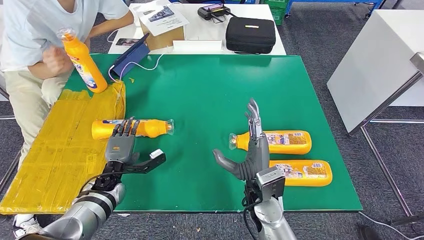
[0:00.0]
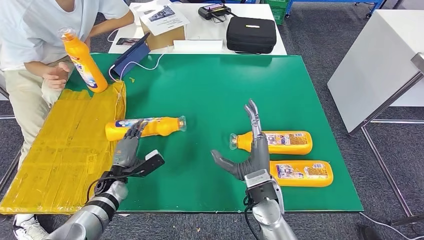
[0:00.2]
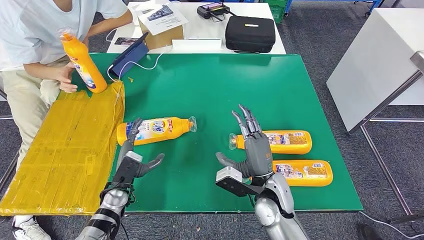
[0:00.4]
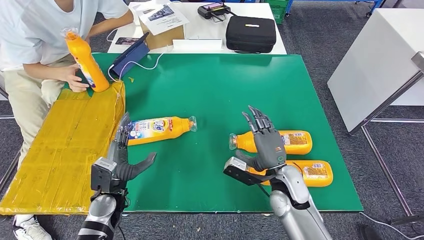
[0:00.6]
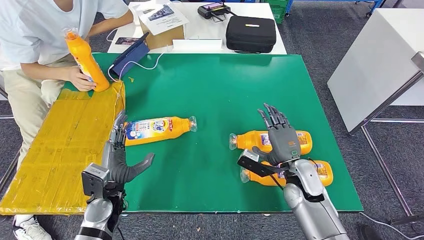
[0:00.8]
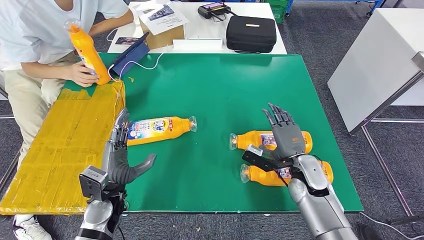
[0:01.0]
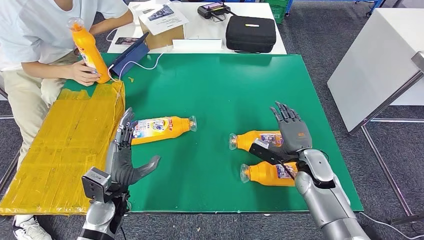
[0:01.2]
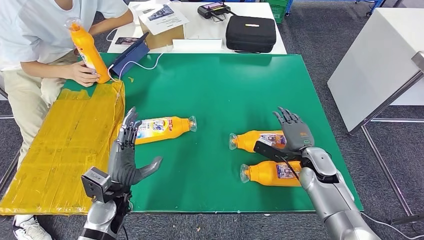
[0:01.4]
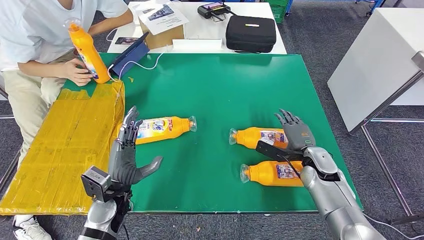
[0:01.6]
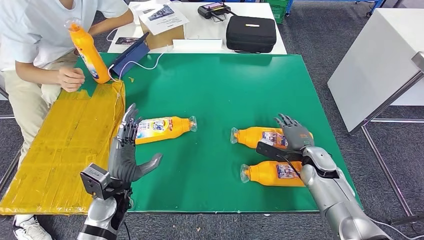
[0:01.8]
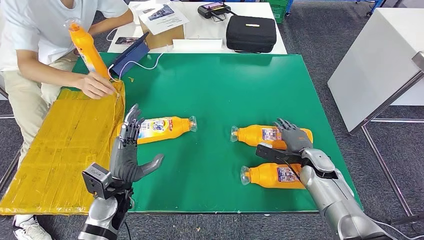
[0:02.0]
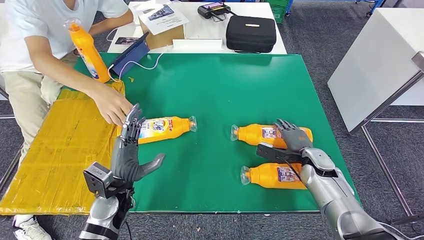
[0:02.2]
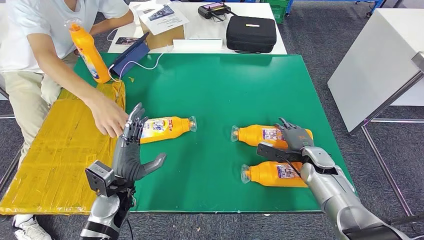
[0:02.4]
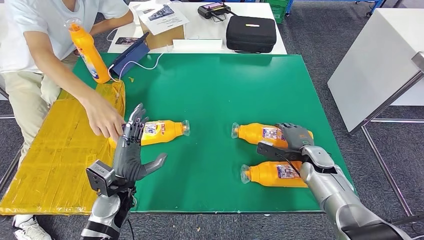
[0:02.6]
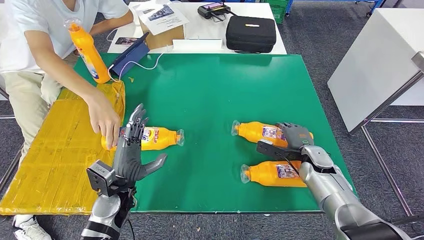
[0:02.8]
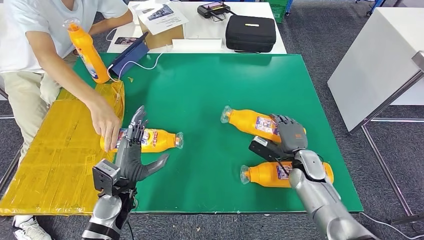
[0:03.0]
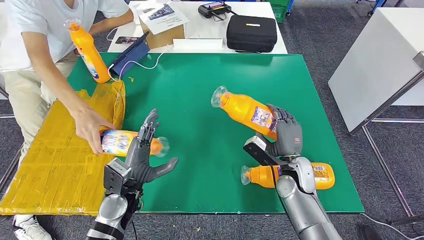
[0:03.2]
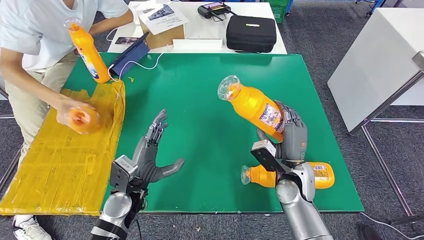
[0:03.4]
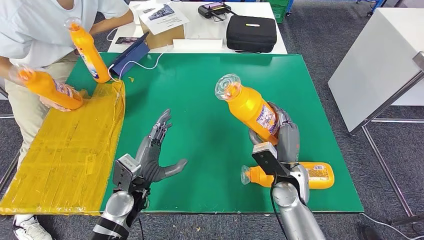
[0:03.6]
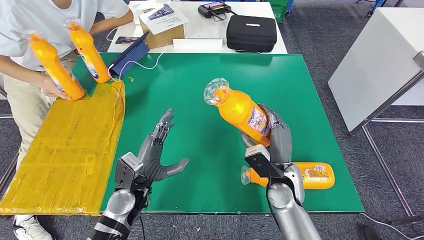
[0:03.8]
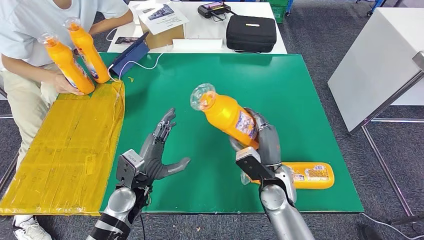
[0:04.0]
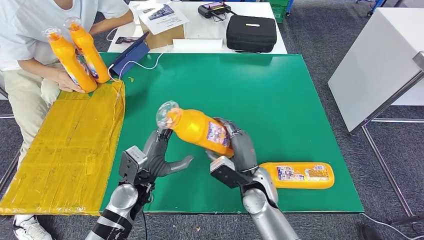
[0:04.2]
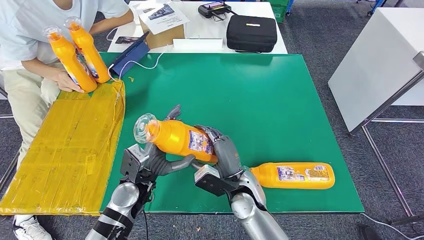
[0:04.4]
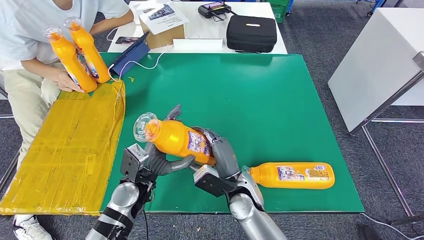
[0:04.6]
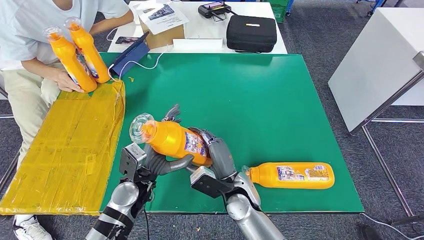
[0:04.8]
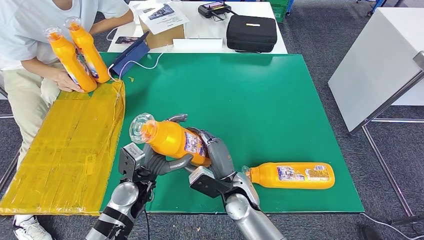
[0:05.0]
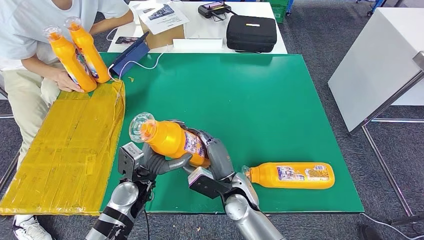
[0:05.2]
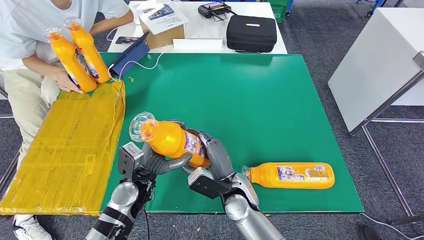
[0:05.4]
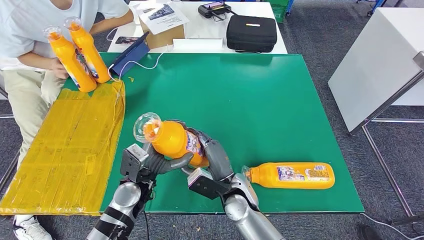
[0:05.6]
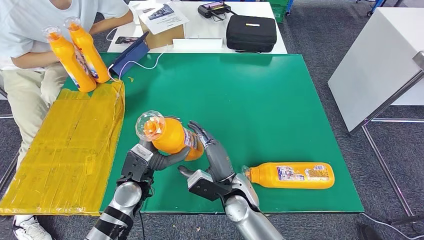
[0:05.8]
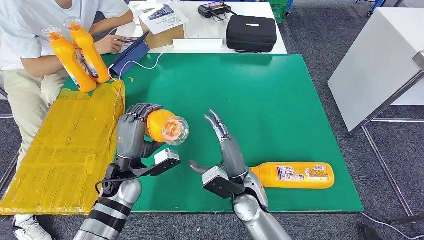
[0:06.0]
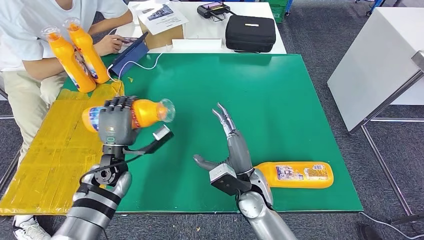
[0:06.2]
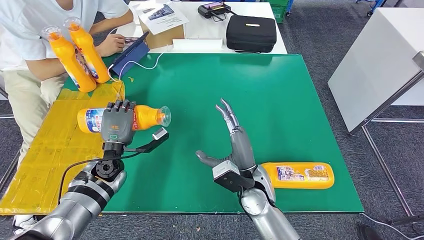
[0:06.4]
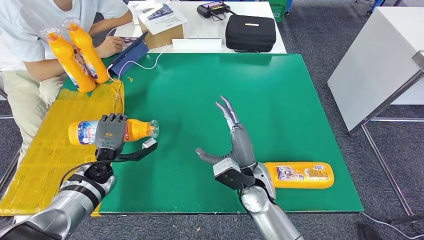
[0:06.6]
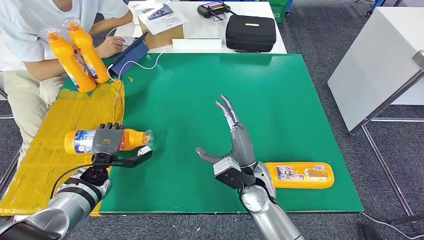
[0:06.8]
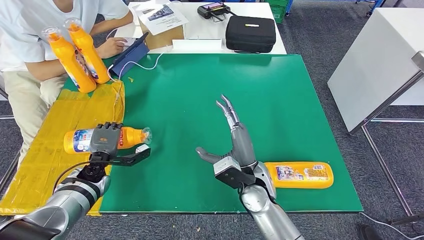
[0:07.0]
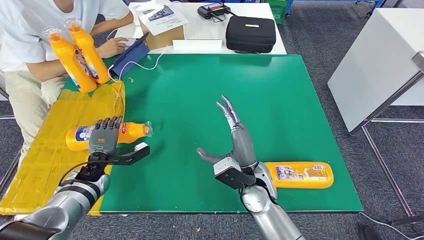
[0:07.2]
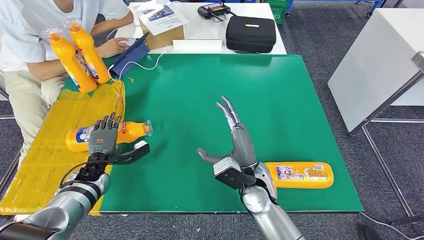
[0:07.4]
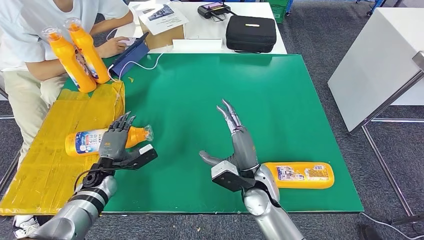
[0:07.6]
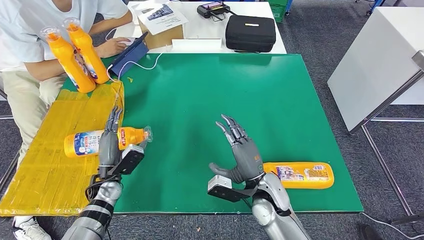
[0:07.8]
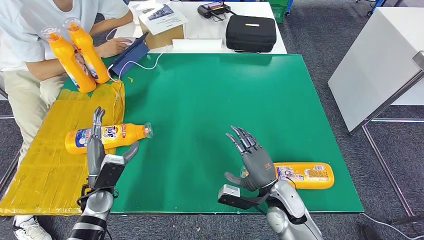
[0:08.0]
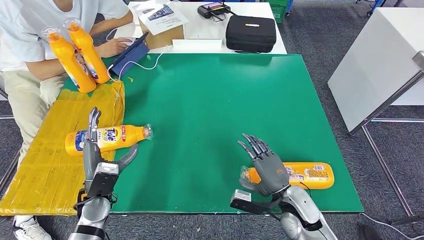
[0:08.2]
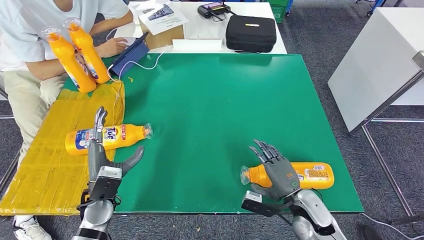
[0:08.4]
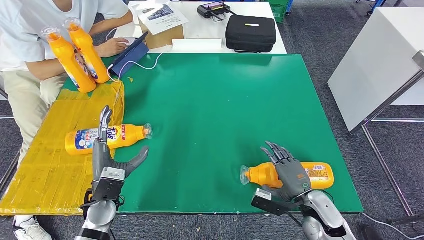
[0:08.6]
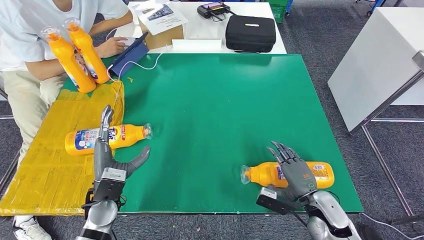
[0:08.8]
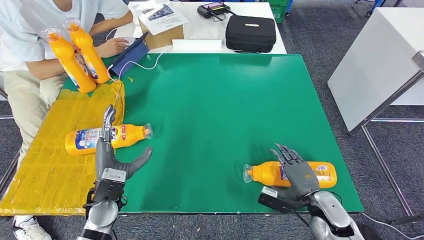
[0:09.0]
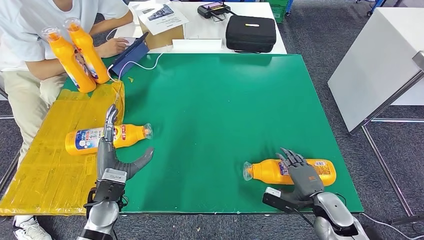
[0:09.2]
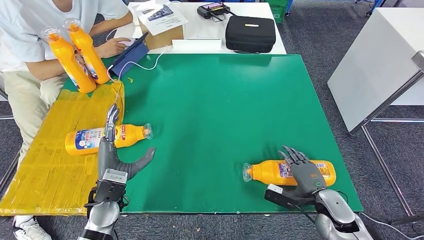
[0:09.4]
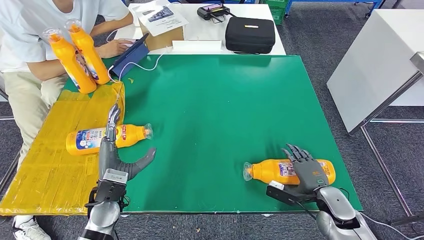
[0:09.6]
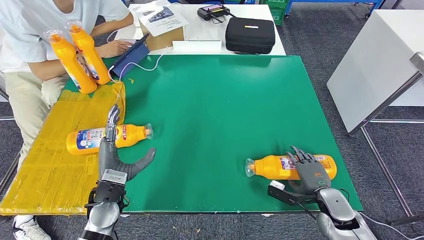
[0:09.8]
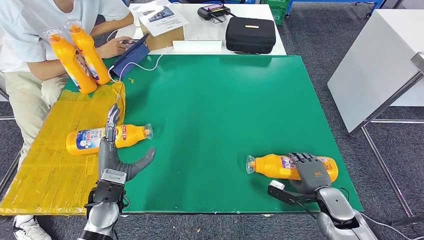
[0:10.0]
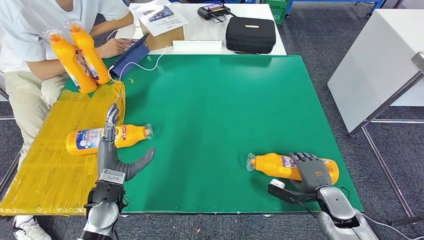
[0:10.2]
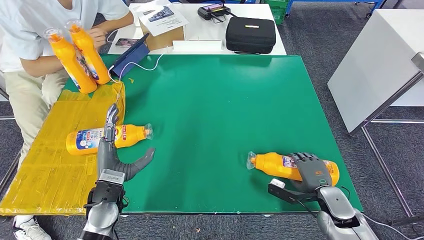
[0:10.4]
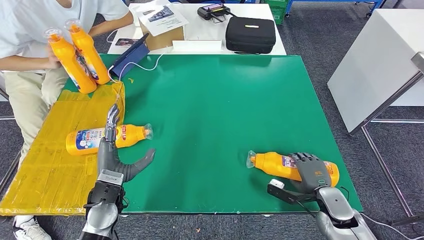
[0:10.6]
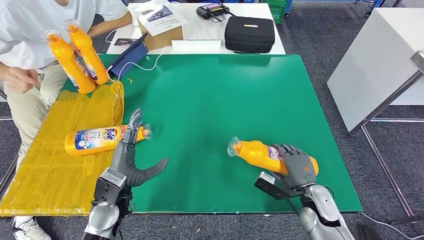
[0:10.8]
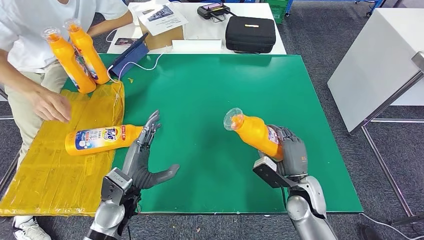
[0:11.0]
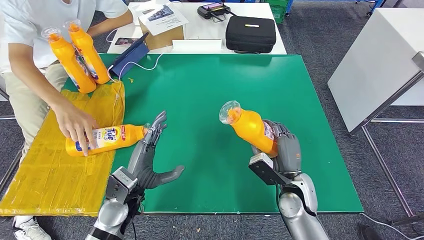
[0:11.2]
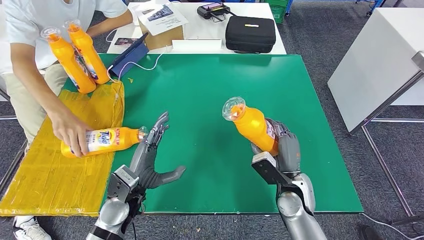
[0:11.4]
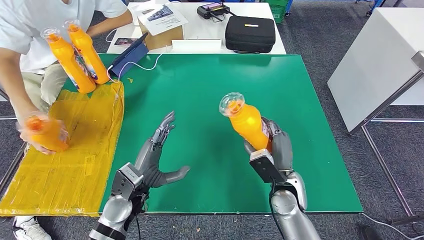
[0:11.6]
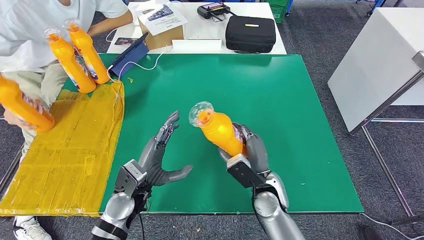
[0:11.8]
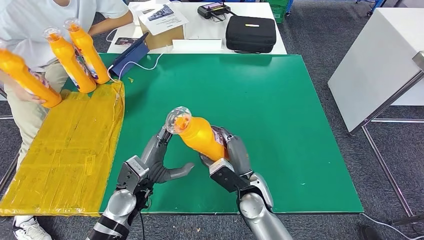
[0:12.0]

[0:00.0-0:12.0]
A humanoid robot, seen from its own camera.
Step, 0:00.6 to 0:03.6: Pick up the bottle from the table.
Step, 0:03.8 to 0:09.6: Flip the bottle to face forward.
0:01.6 to 0:03.0: The hands move only a little.
0:06.0 to 0:07.6: The left hand moves to the left and downward, roughly 15 cm.
0:07.6 to 0:09.0: The right hand is displaced to the right by about 20 cm; the left hand travels backward, to the right and upward by some 15 cm.

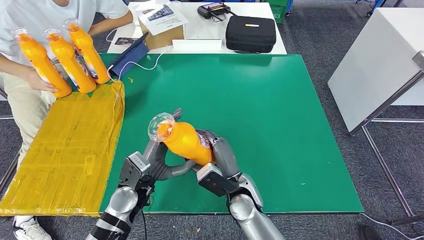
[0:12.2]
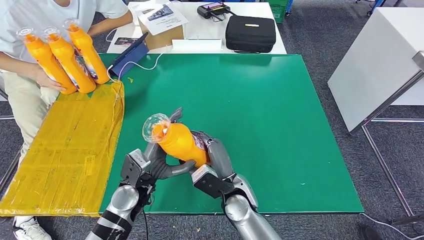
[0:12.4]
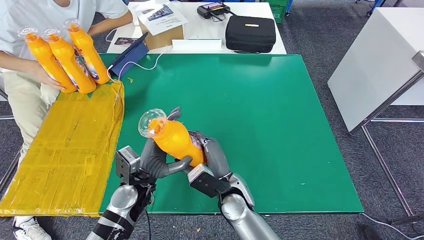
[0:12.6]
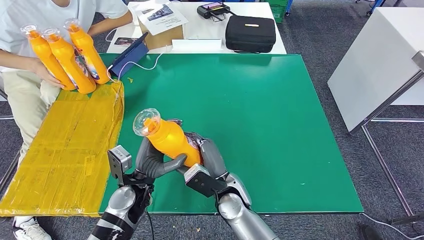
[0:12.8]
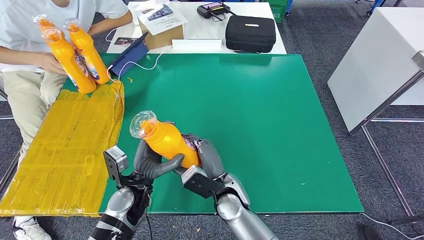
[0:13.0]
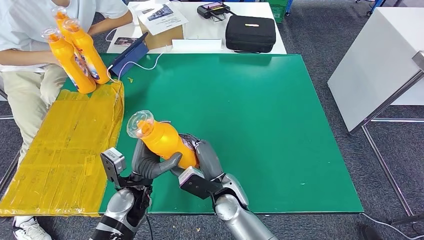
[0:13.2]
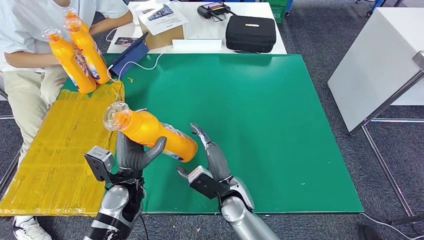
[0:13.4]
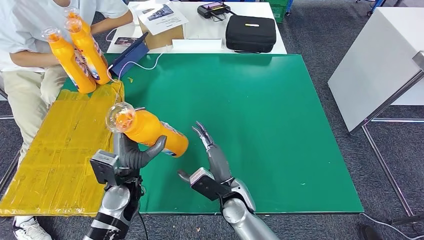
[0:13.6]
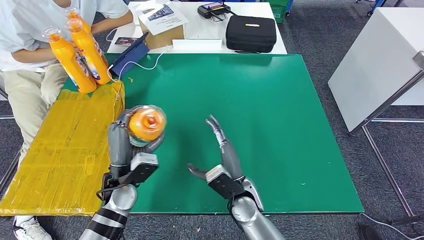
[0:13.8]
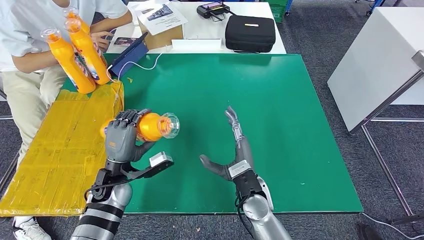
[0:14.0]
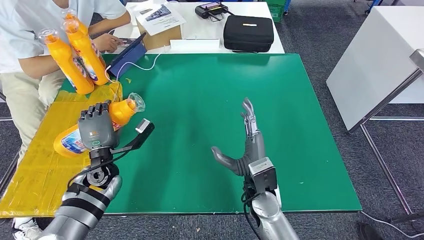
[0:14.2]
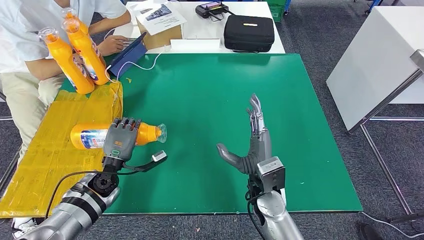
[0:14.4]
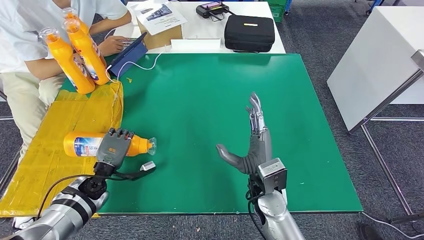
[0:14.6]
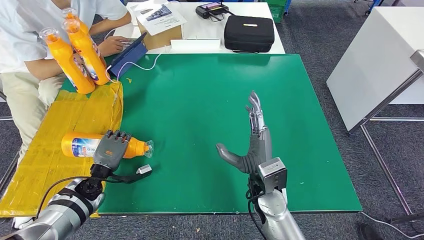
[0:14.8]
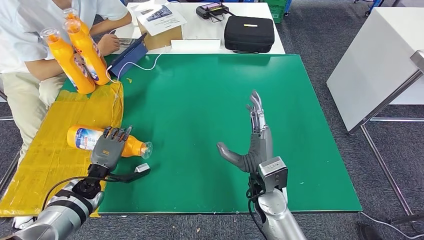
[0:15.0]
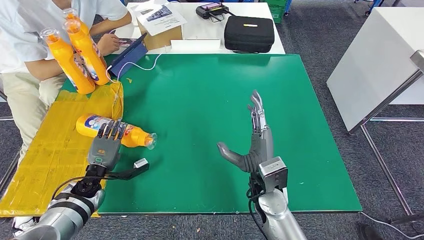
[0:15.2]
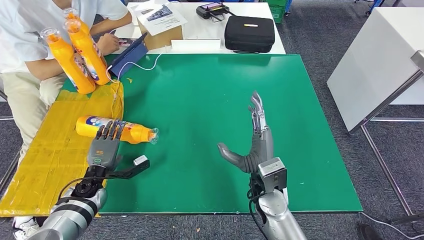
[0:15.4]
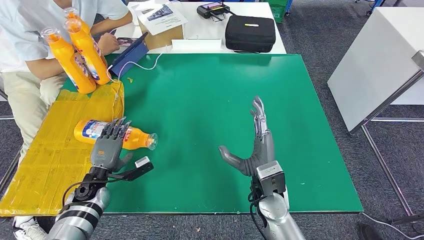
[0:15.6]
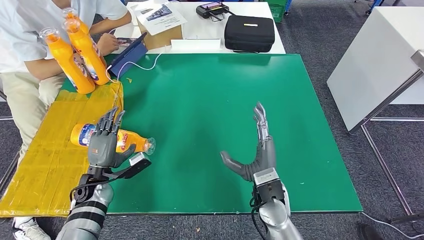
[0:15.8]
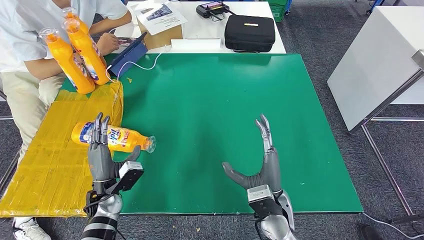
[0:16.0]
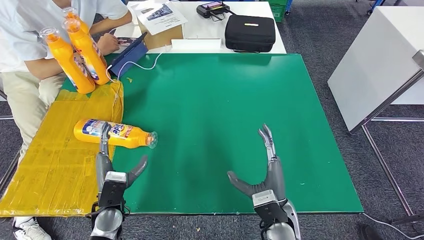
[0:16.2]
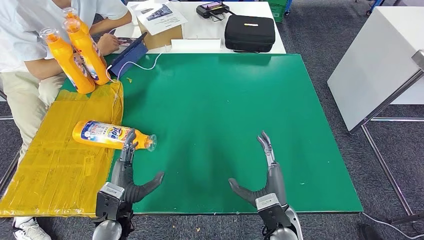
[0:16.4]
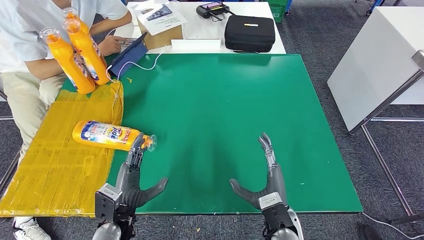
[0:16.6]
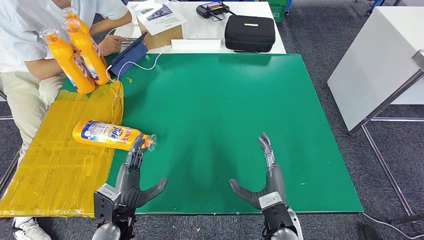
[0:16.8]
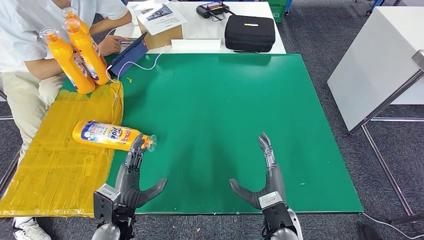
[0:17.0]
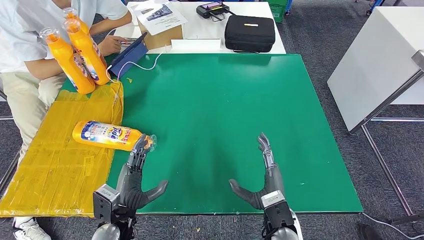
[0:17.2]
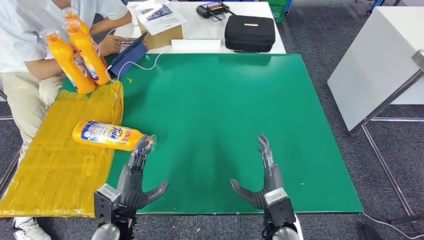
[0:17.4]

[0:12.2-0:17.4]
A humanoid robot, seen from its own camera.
Step, 0:12.6 to 0:17.2: Flip the bottle to face forward.
0:12.2 to 0:14.0: The left hand travels to the left by about 5 cm.
0:14.0 to 0:15.6: The left hand travels to the left and downward by about 10 cm.
0:15.6 to 0:17.4: The right hand heads backward and downward, covering approximately 10 cm; the left hand travels backward and to the right by approximately 15 cm.
